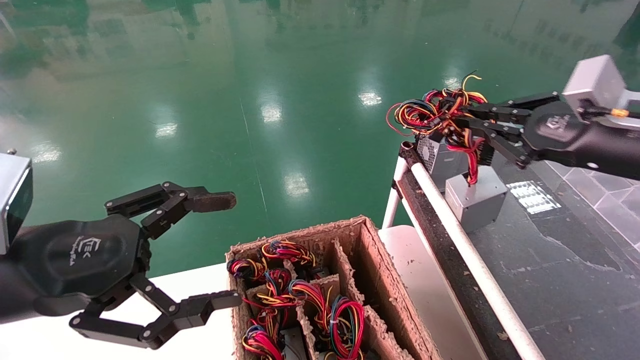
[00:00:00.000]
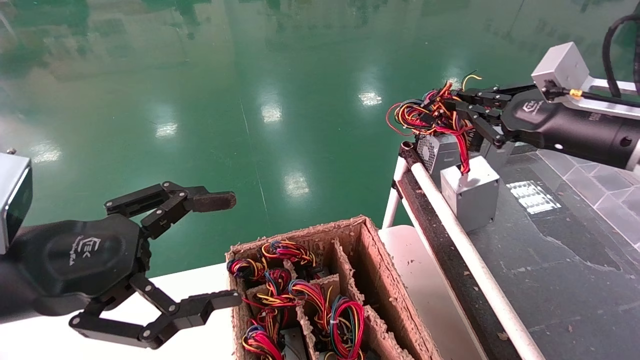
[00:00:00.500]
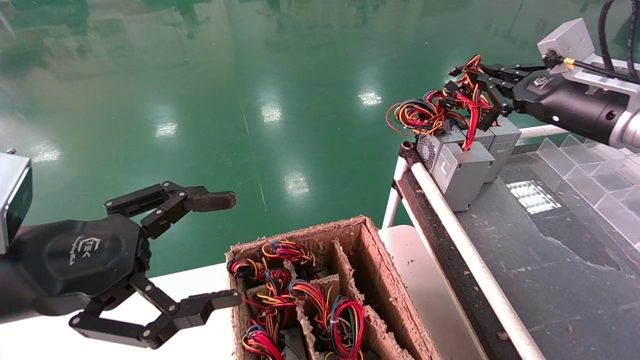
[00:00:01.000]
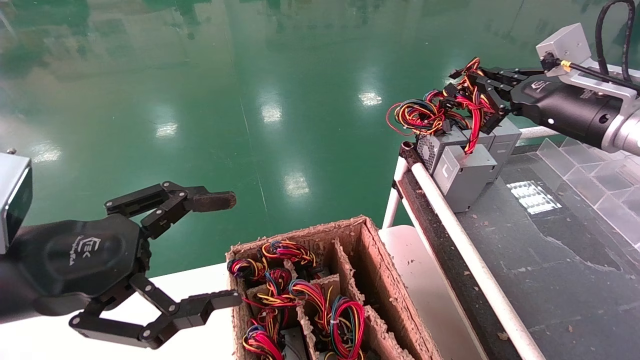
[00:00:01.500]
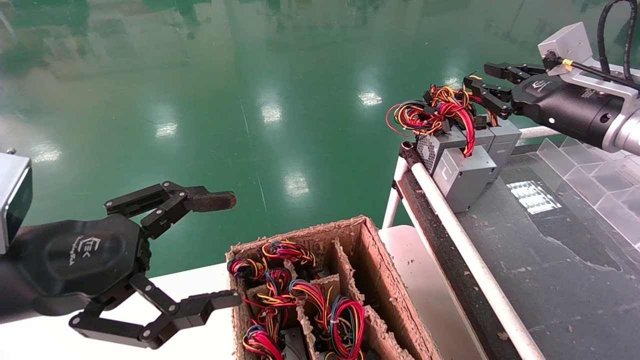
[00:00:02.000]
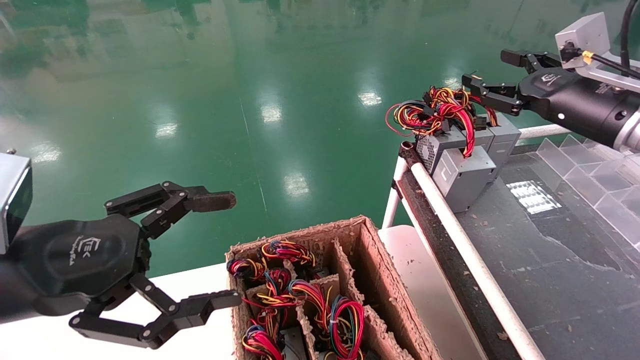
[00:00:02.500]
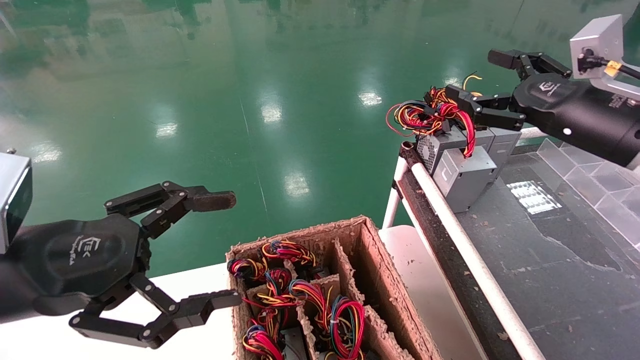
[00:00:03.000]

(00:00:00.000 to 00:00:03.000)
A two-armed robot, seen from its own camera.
Step, 00:00:00.000 - 00:00:02.000: Place the power supply on the operating table.
00:00:00.000 - 00:00:01.500: The right gripper travels forward by roughly 10 cm.
00:00:01.500 - 00:00:03.000: The right gripper shifts some 5 cm backward, and opens.

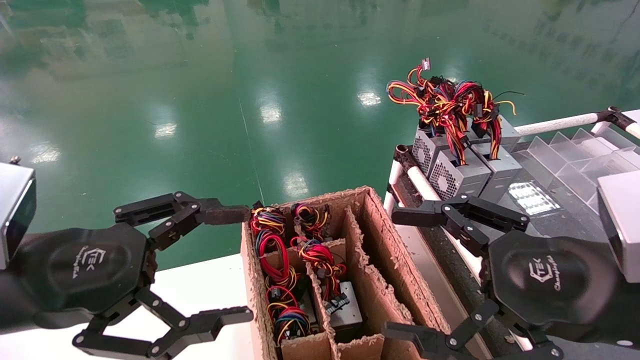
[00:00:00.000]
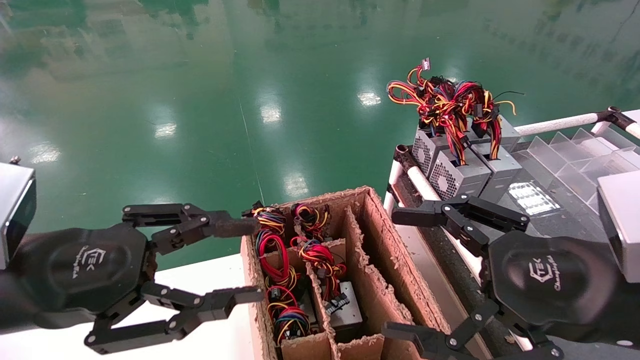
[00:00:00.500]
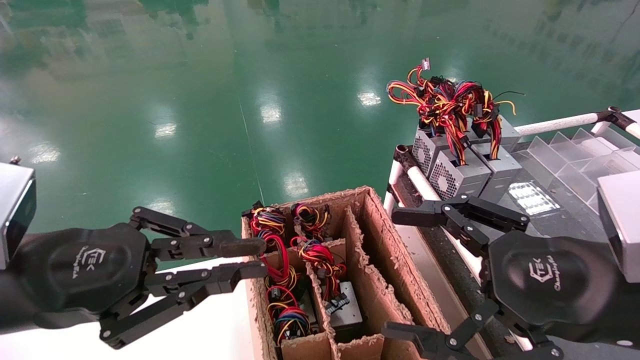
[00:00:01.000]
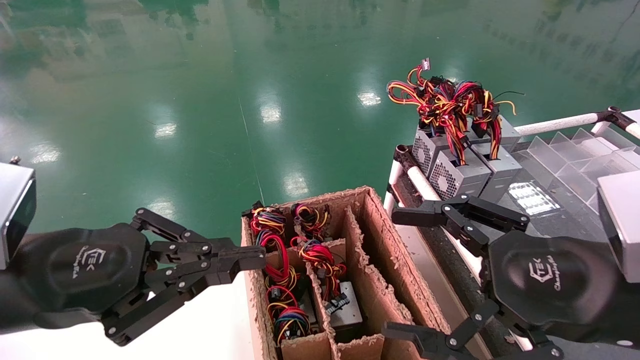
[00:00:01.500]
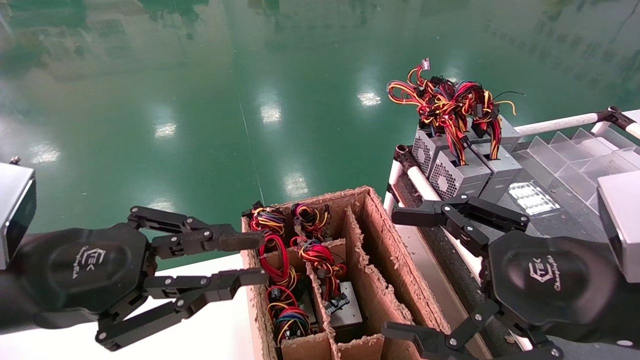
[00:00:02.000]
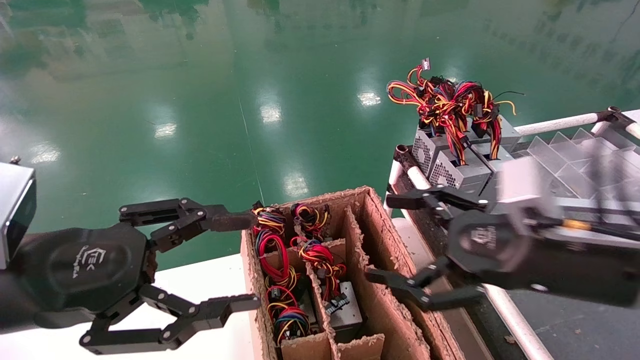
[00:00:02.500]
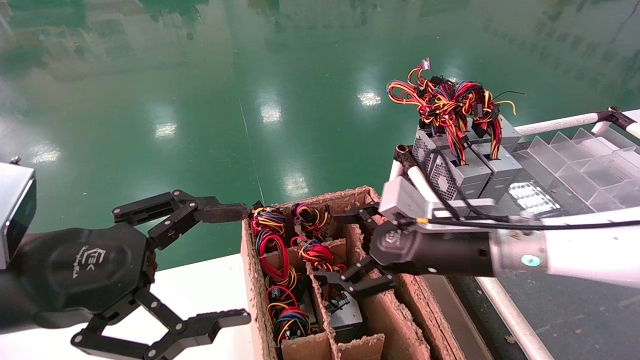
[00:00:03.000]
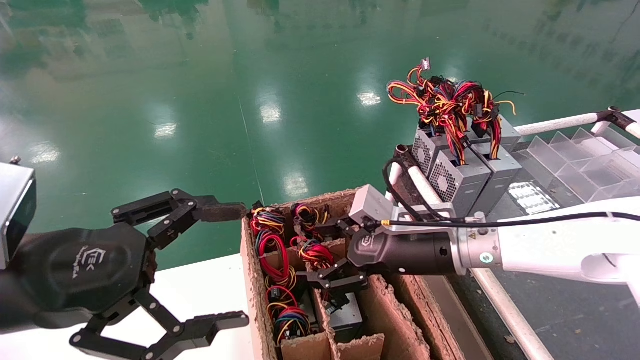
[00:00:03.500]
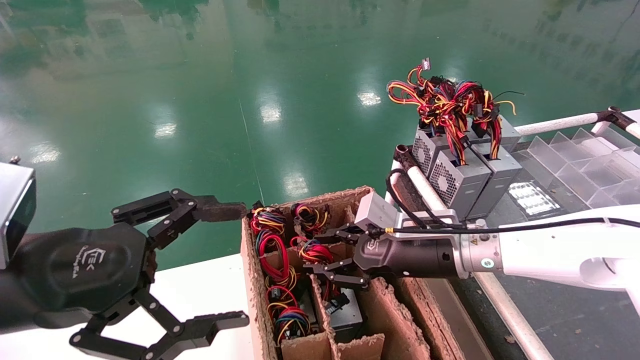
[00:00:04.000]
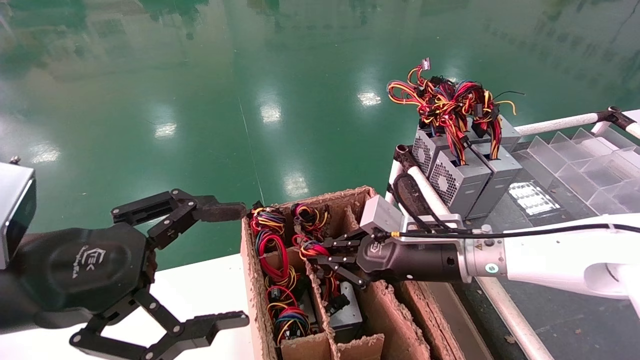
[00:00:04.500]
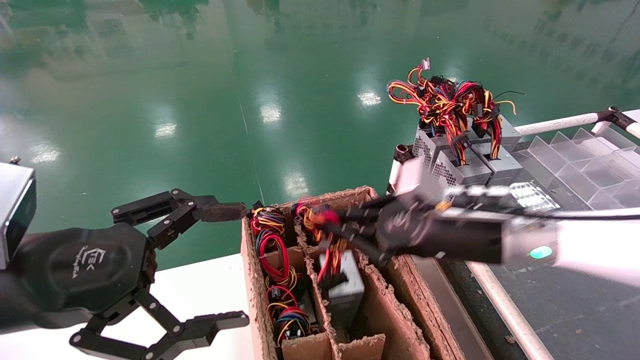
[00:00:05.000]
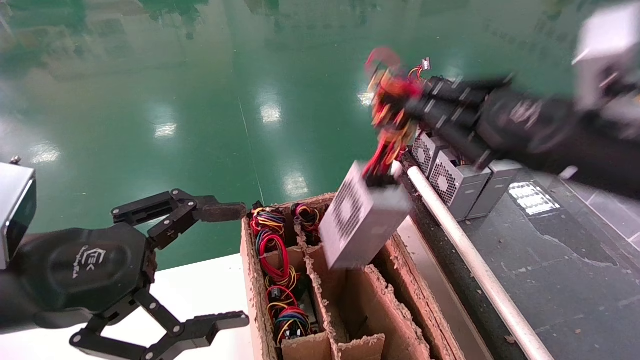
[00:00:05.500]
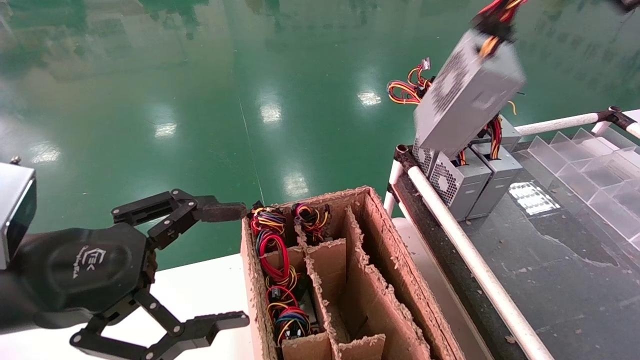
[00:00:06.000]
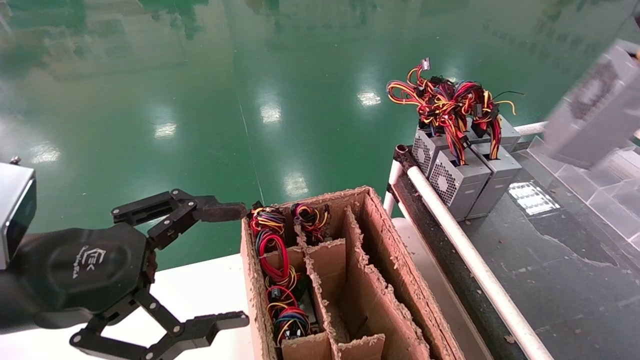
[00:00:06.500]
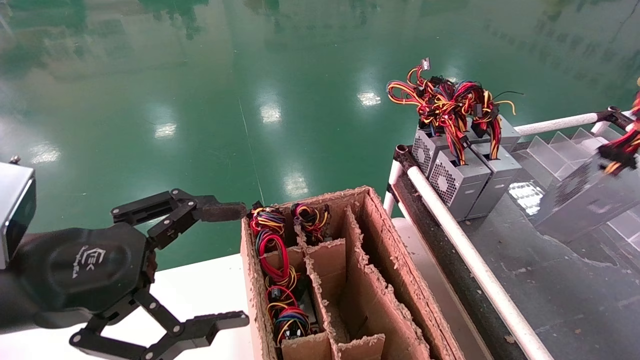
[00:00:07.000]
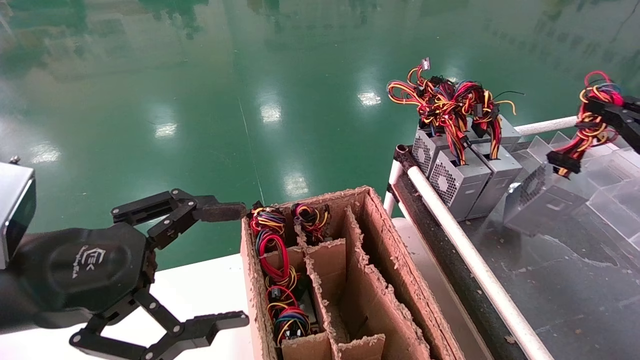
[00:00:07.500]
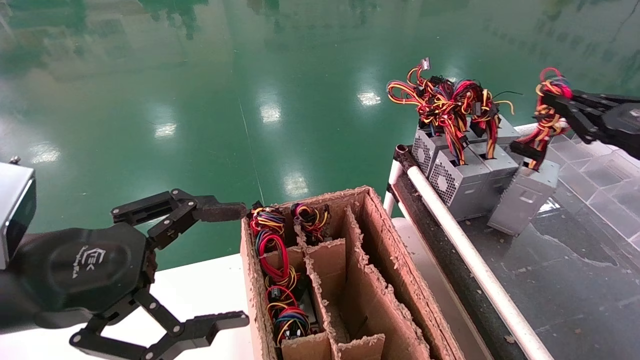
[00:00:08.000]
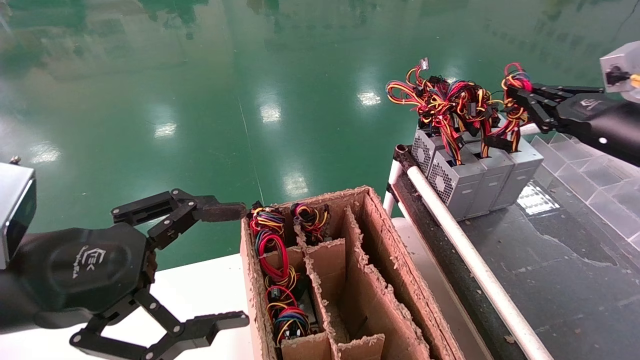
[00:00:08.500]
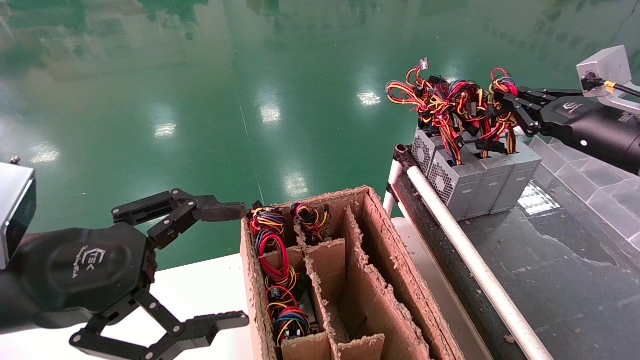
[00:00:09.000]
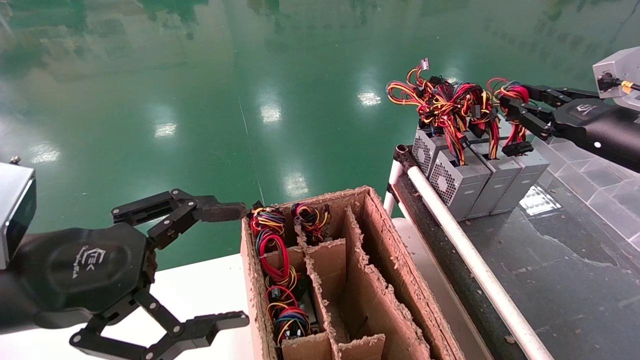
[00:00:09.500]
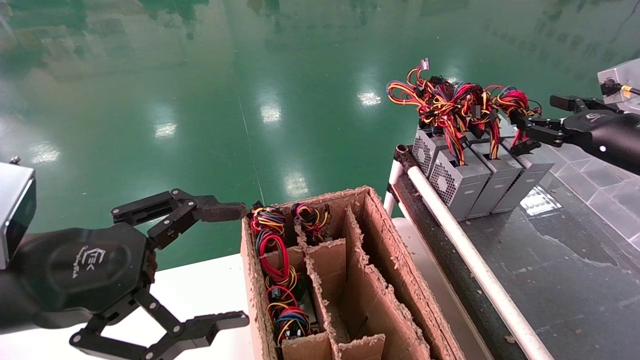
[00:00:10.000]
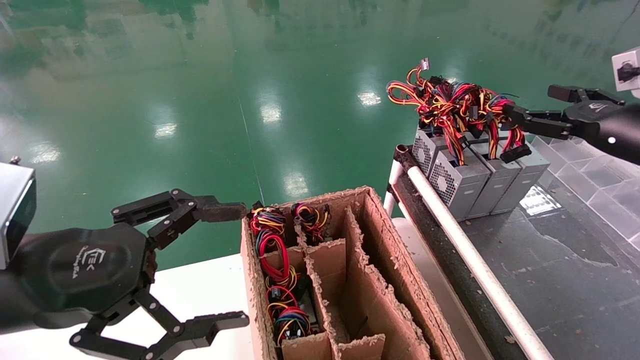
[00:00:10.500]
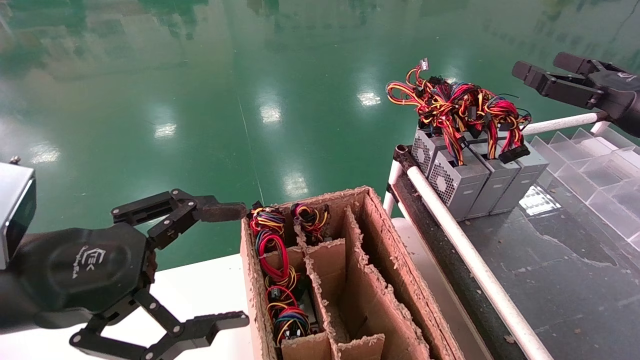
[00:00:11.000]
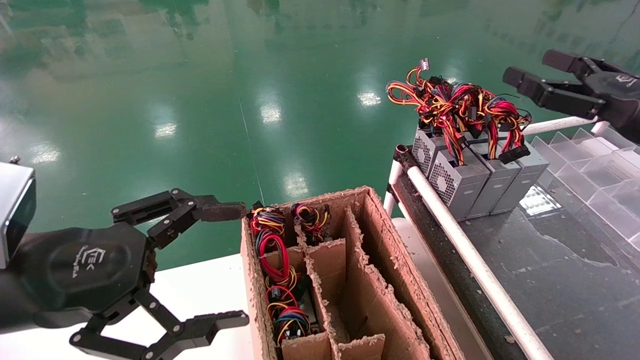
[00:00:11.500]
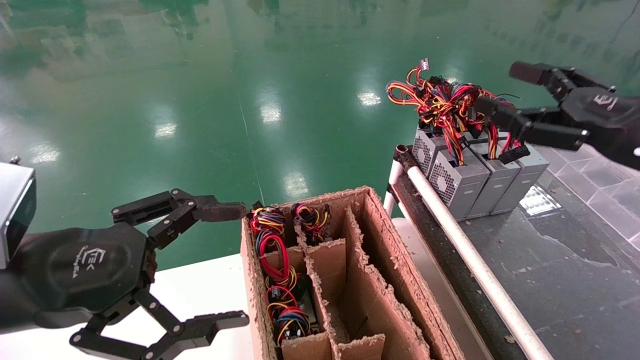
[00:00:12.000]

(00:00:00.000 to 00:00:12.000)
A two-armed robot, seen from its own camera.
Step, 00:00:01.500 - 00:00:04.500: Grab and lift the power supply from the large box.
Step, 00:00:05.000 - 00:00:09.000: Place the power supply on the operating table.
00:00:00.000 - 00:00:02.000: The left gripper closes its fingers.
00:00:02.000 - 00:00:04.000: The left gripper opens up, while the right gripper is displaced forward, to the left and downward by about 20 cm, and closes its fingers.
00:00:04.000 - 00:00:06.000: The right gripper shifts approximately 35 cm upward, to the right and backward, and closes up.
00:00:06.000 - 00:00:08.000: The right gripper shifts about 20 cm downward, forward and to the right.
00:00:08.000 - 00:00:10.000: The right gripper heads forward, covering approximately 5 cm, and opens its fingers.
00:00:10.000 - 00:00:12.000: The right gripper goes roughly 10 cm backward and to the left, and opens.
